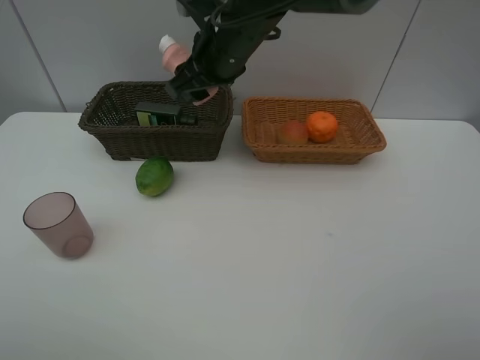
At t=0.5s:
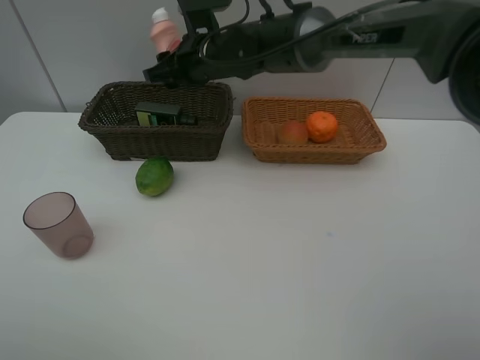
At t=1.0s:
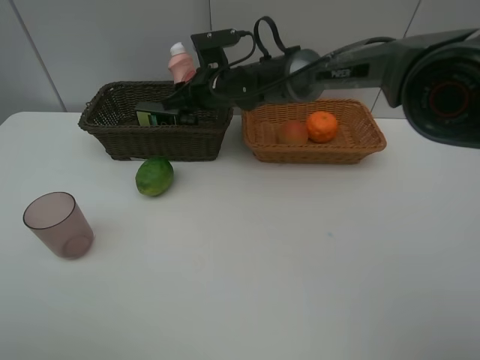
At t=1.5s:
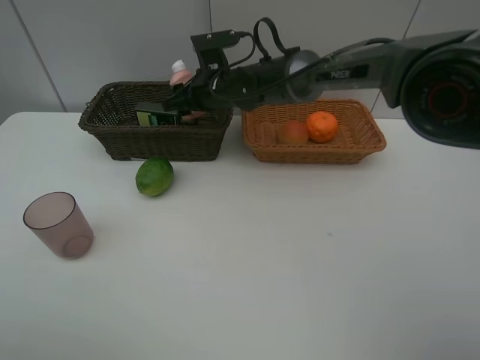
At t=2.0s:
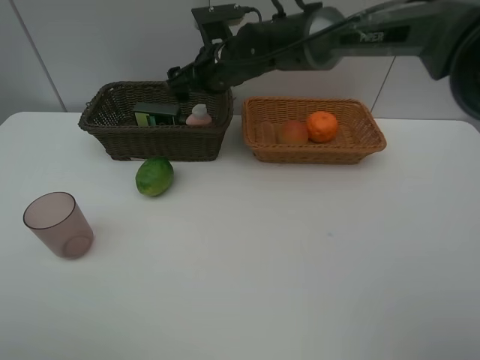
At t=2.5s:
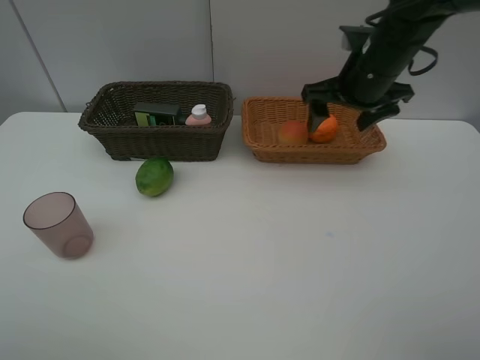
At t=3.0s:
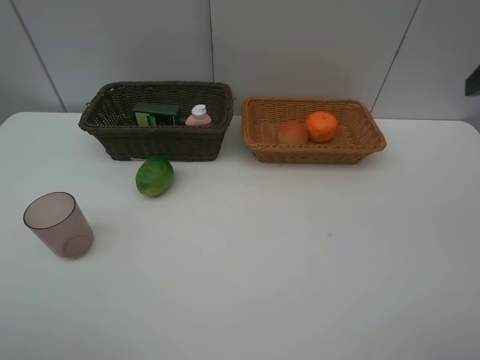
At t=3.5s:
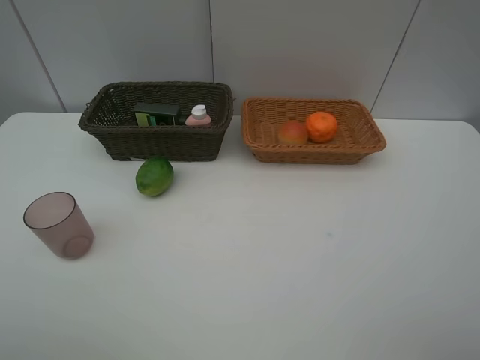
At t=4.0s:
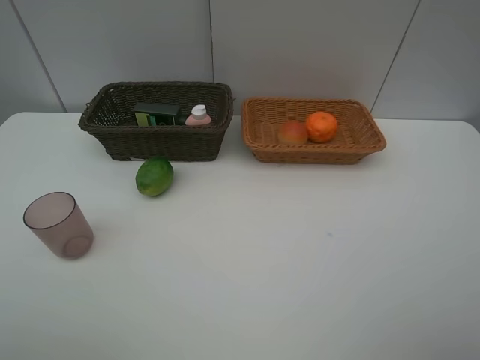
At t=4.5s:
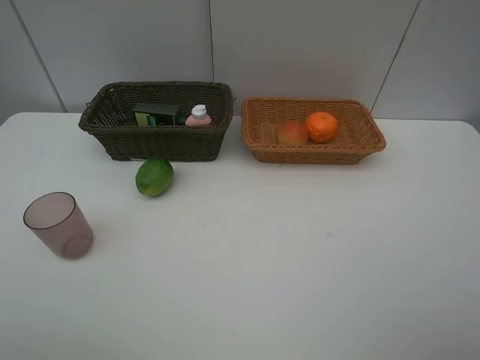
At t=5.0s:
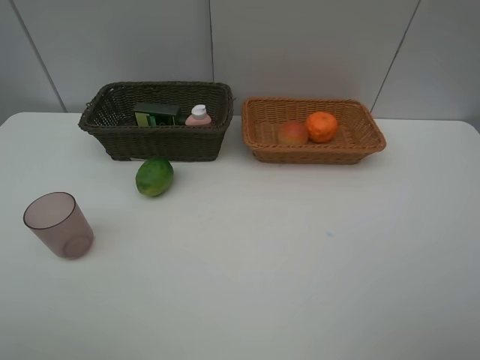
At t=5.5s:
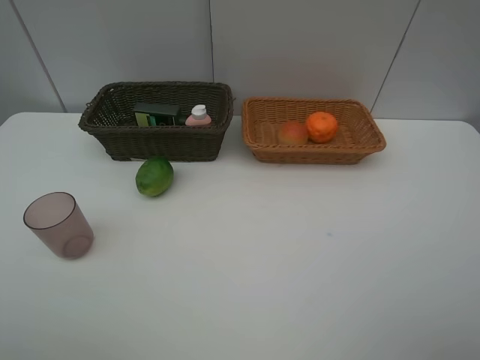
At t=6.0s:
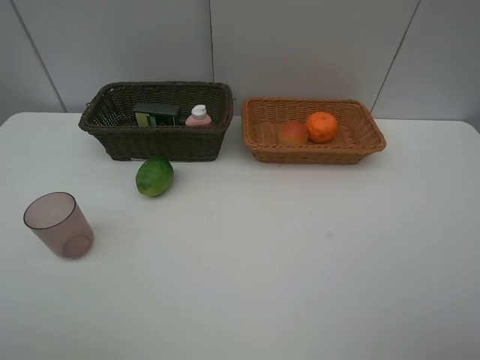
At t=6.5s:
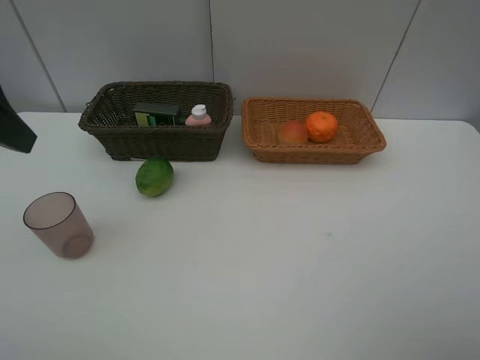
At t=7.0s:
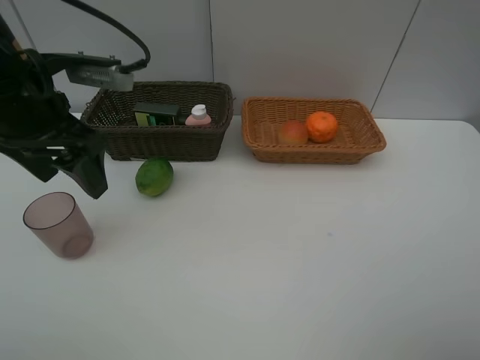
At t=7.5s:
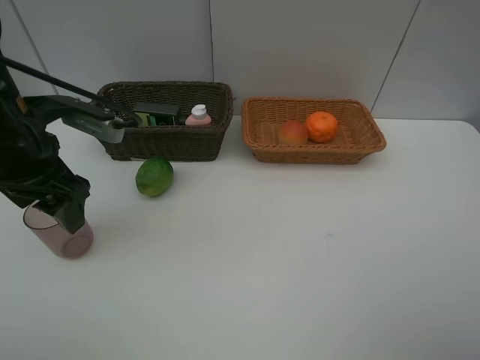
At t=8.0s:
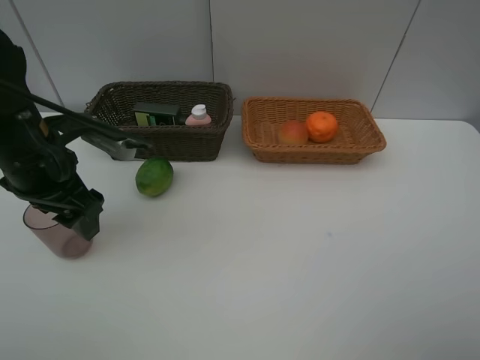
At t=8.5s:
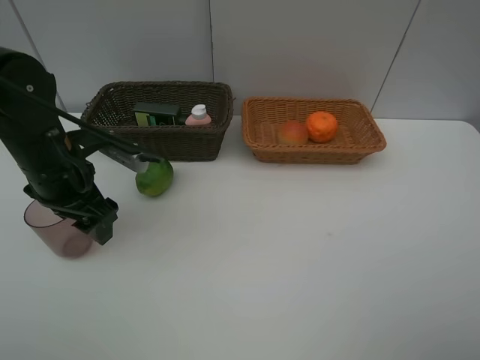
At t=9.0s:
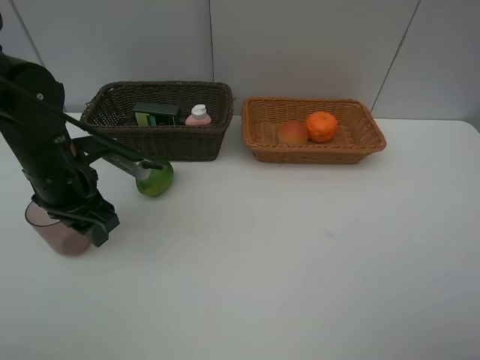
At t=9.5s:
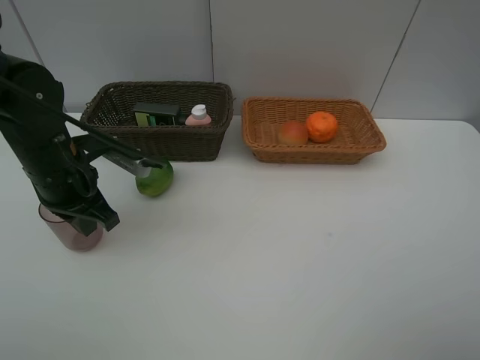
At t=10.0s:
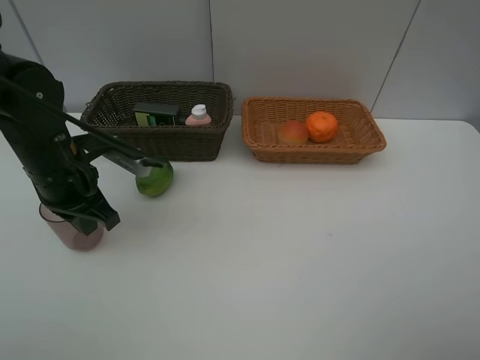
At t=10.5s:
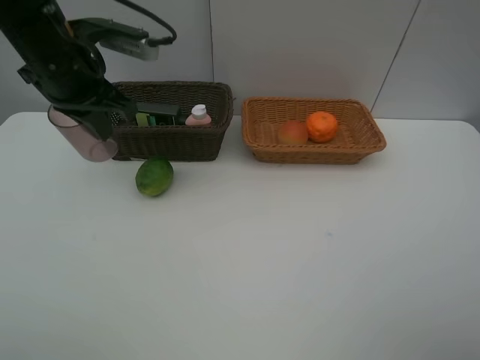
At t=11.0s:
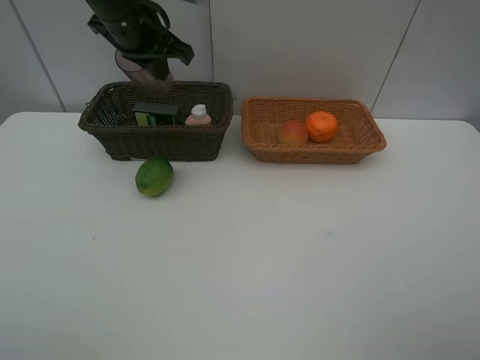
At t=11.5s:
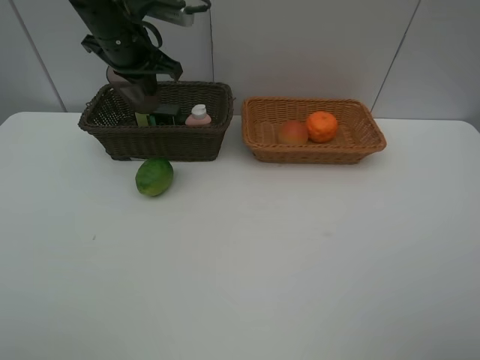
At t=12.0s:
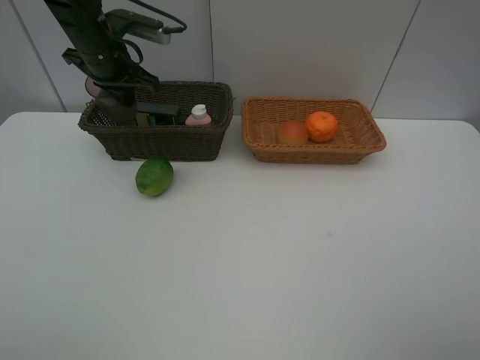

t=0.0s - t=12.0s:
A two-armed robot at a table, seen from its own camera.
Task of the whole recording: place multiple objects separately in different baskets.
t=0.0s - t=2.0s: The right gripper is displaced downward and forward by roughly 10 cm, and opens up.
t=2.0s - t=4.0s: The right gripper heads backward and to the right, covering roughly 50 cm.
t=4.0s - t=6.0s: Both grippers stay put.
t=6.0s - t=8.0s: The left gripper heads forward and downward, covering some 25 cm.
t=8.0s - t=10.0s: The left gripper closes.
t=10.0s - t=12.0s: The left gripper travels forward by some 20 cm.

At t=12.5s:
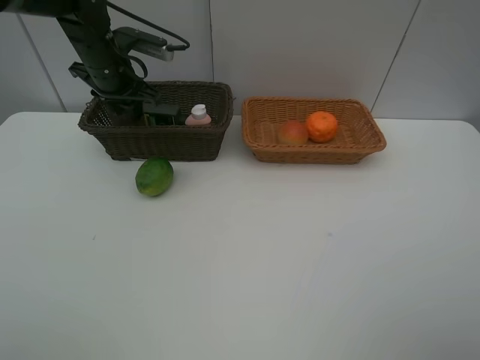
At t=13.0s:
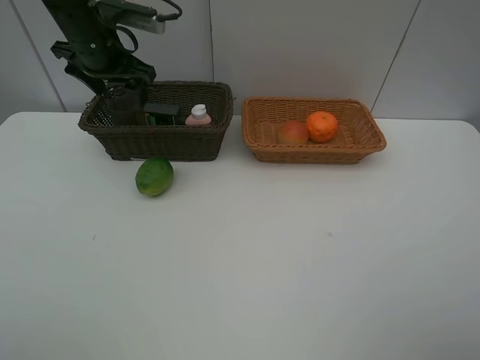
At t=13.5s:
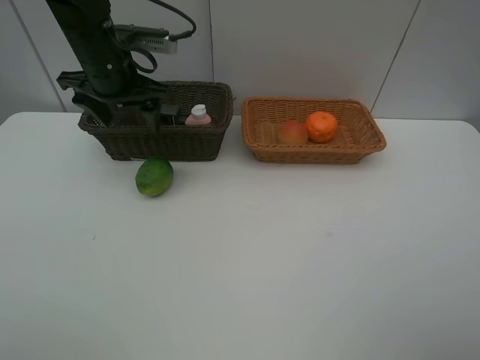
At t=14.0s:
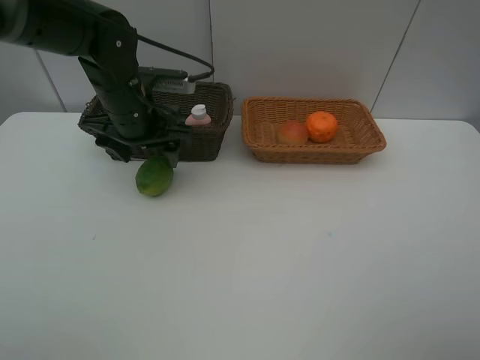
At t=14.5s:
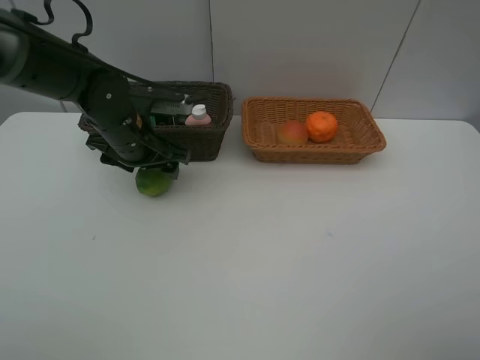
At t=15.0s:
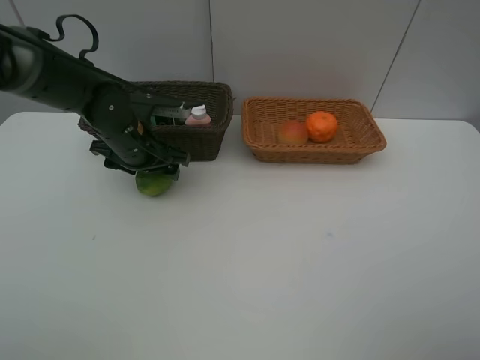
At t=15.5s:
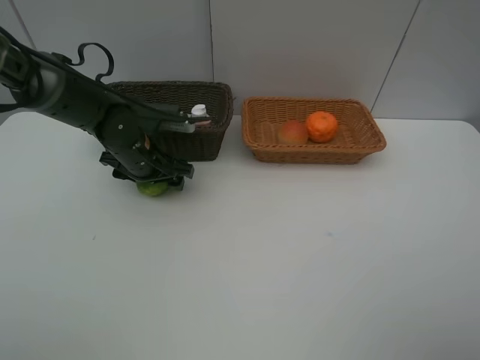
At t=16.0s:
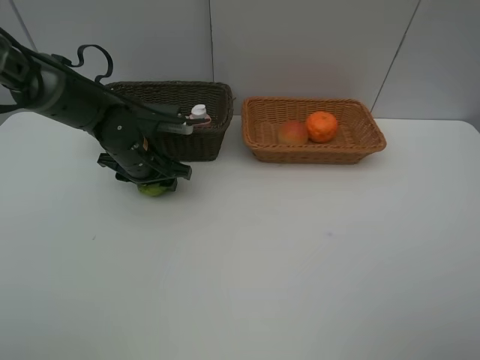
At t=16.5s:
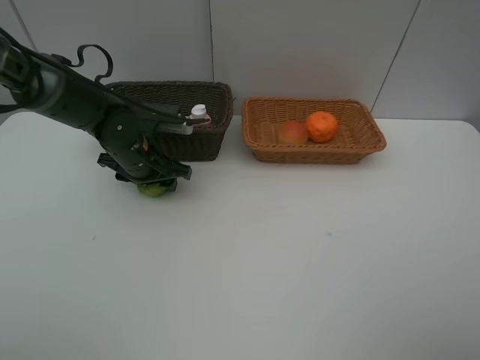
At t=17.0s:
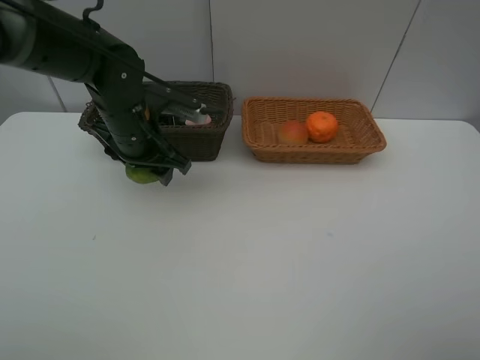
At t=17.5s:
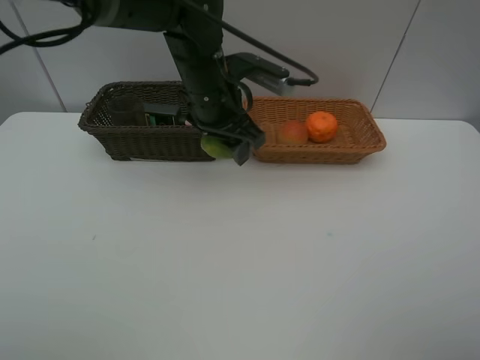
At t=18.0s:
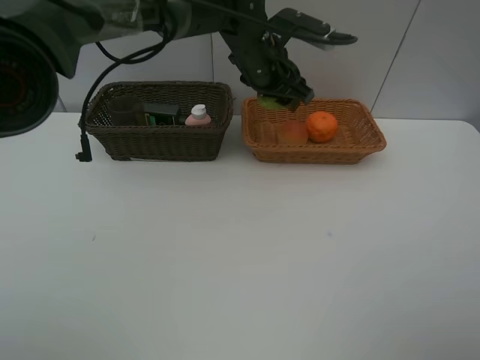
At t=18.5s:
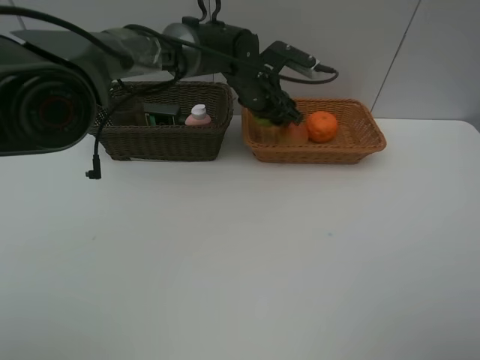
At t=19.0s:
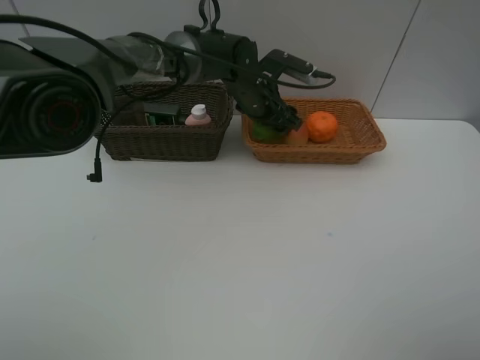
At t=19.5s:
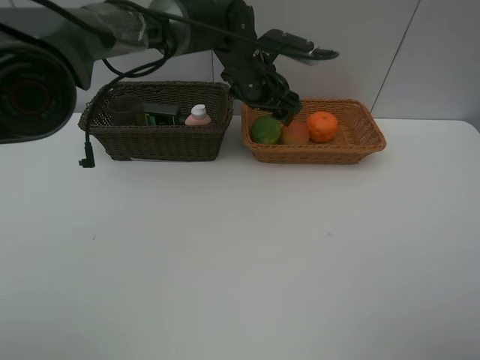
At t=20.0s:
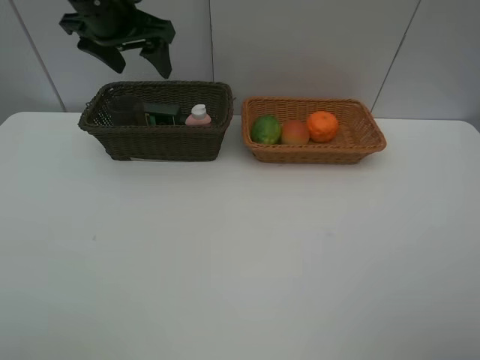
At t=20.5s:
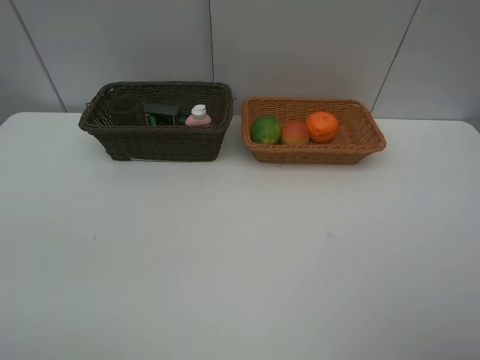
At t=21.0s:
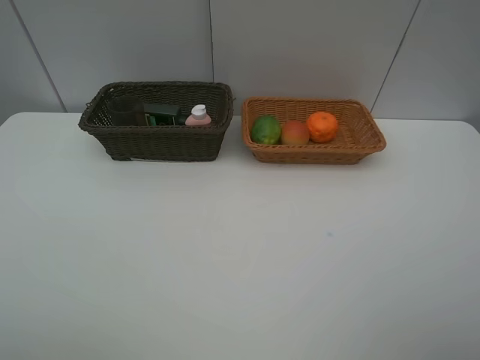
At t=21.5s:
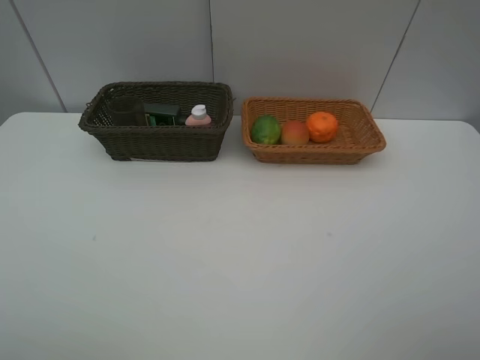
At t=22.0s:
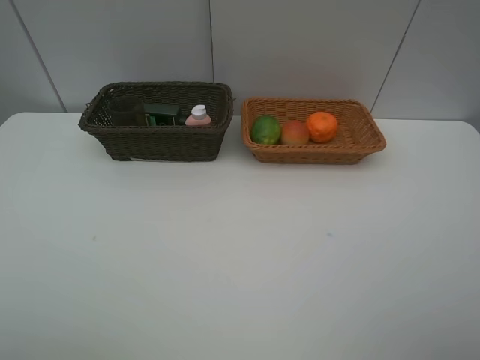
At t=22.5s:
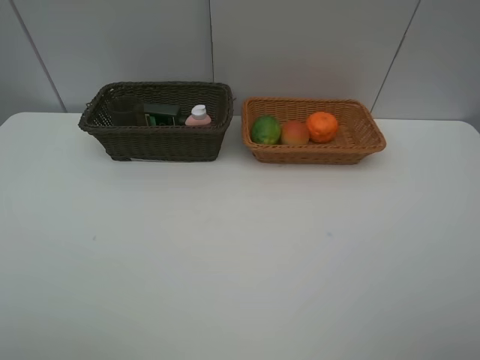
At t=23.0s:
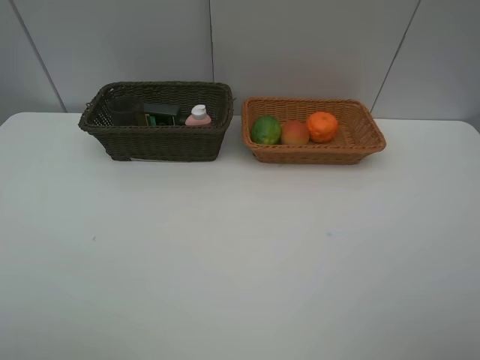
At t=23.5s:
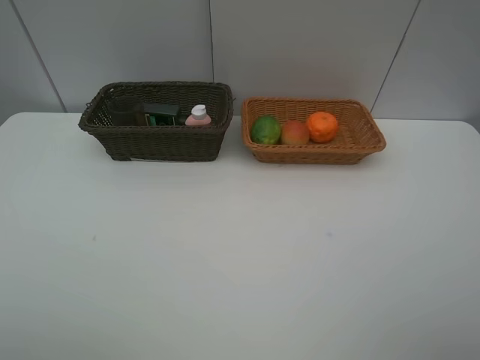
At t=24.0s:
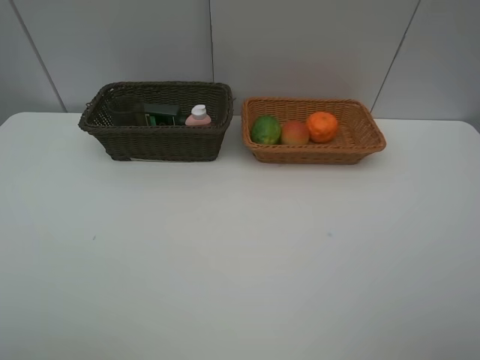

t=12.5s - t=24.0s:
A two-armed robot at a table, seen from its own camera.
Task of the whole recording: place multiple objects separately in different baskets.
t=12.5s - t=14.5s: The left gripper moves backward and downward, approximately 10 cm, and opens up.
t=14.5s - t=16.5s: The left gripper heads downward, covering approximately 5 cm.
t=16.5s - t=18.5s: The left gripper shifts roughly 20 cm to the right and forward.
t=18.5s - t=20.0s: The left gripper travels to the left and upward by approximately 25 cm.
t=20.0s - t=22.0s: The left gripper is displaced backward by roughly 40 cm.

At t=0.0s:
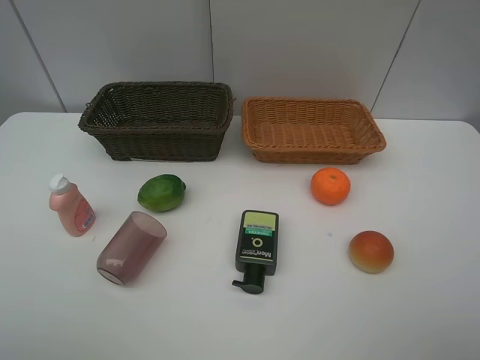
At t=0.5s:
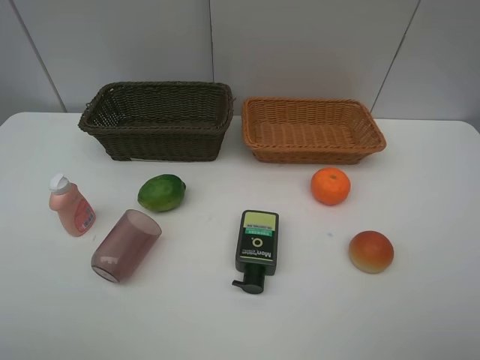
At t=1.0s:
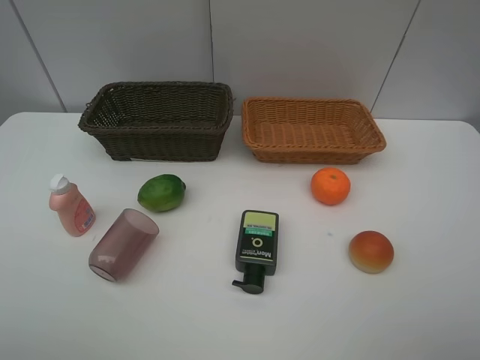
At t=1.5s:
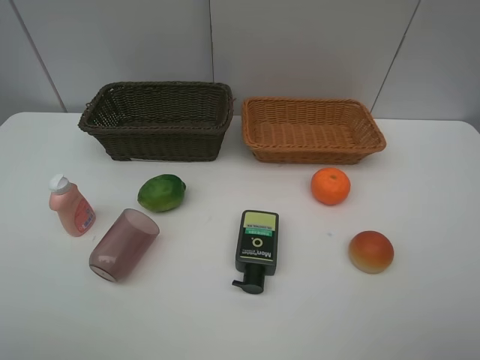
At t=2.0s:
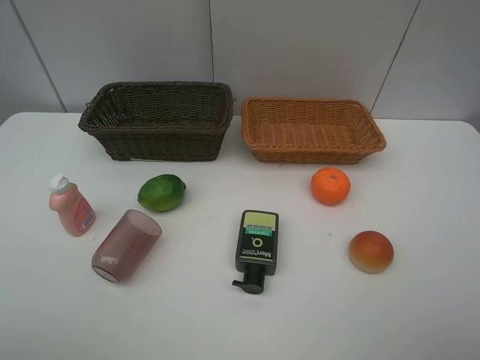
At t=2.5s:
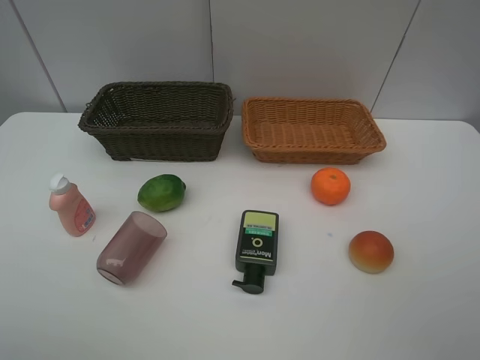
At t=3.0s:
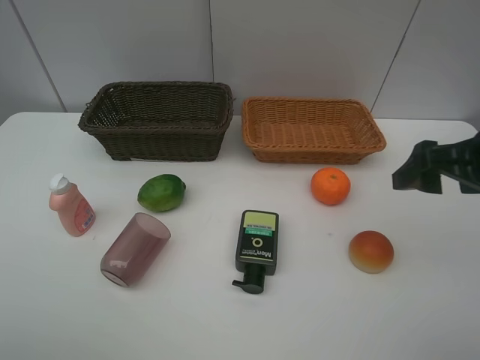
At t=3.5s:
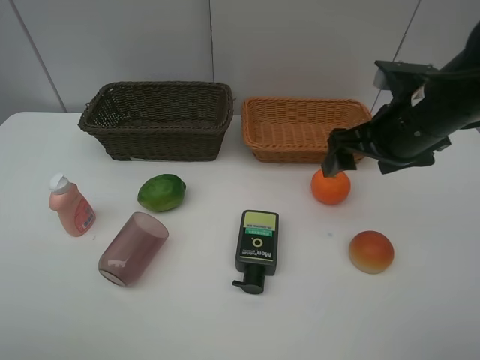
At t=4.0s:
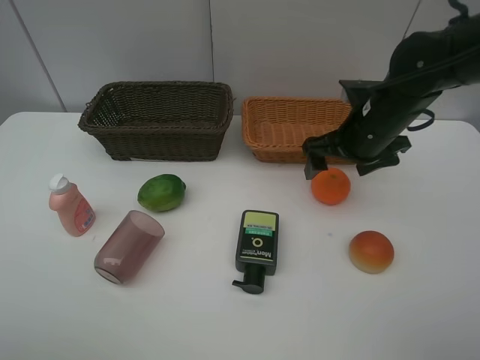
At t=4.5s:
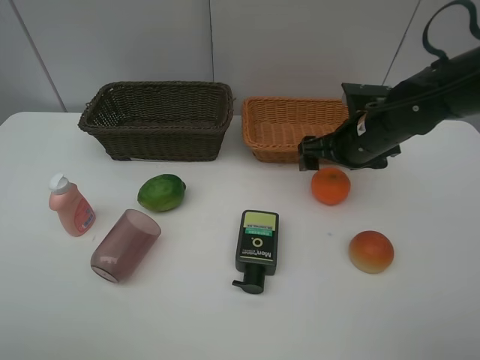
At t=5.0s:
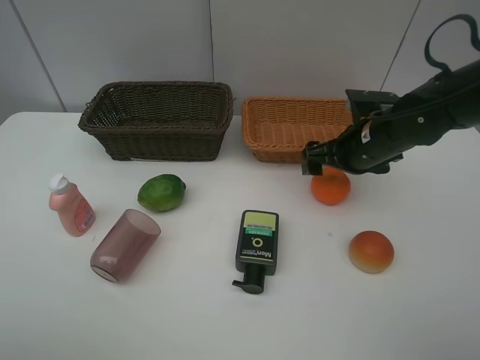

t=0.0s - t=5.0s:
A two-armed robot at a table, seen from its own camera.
Task of the whole recording: place multiple objects separately in different baskets.
t=2.5s - t=5.0s: The right gripper shifts approximately 30 cm forward, downward and to the left.